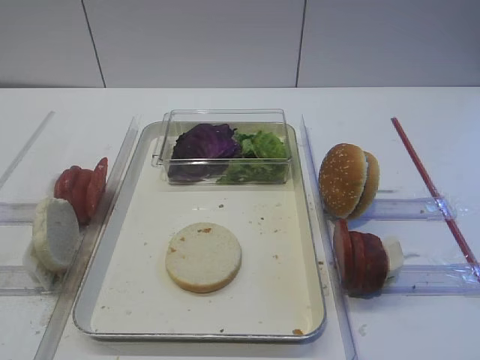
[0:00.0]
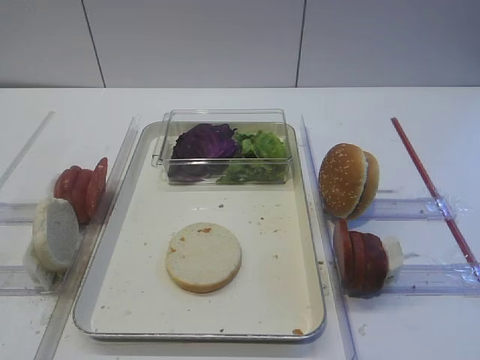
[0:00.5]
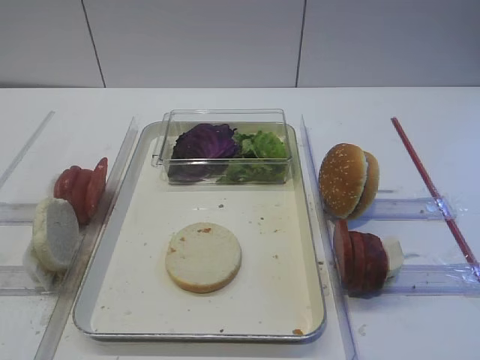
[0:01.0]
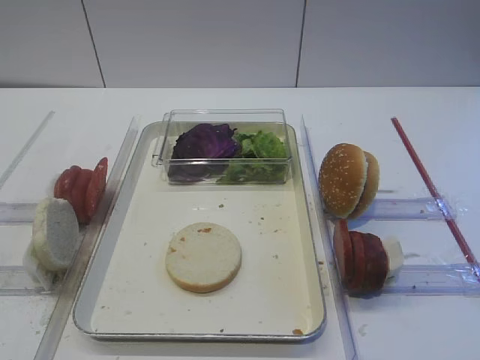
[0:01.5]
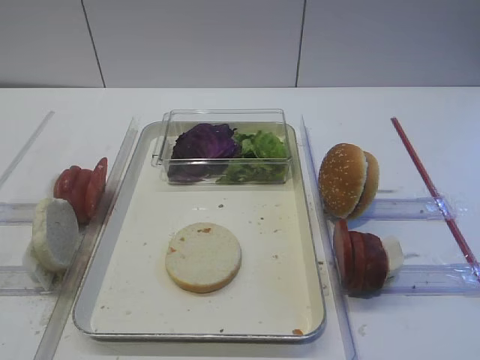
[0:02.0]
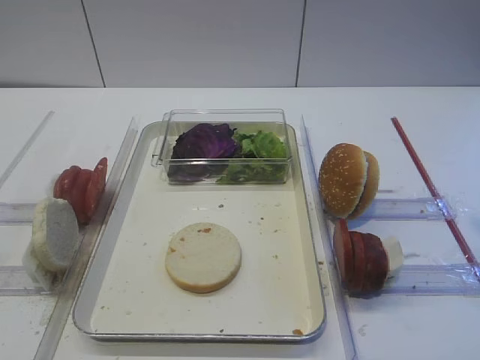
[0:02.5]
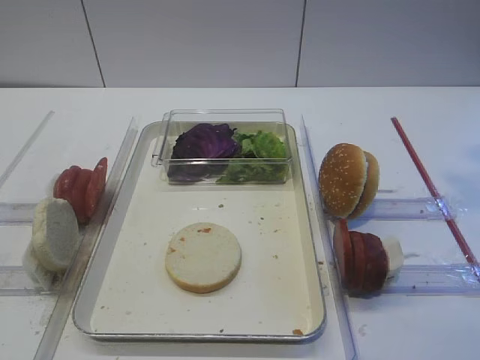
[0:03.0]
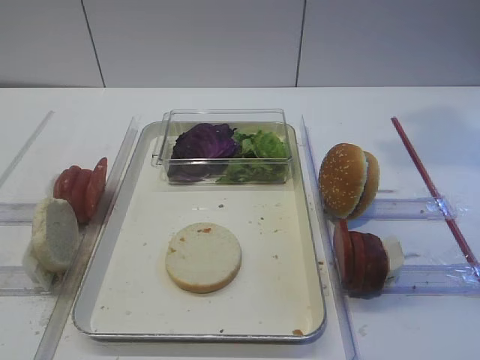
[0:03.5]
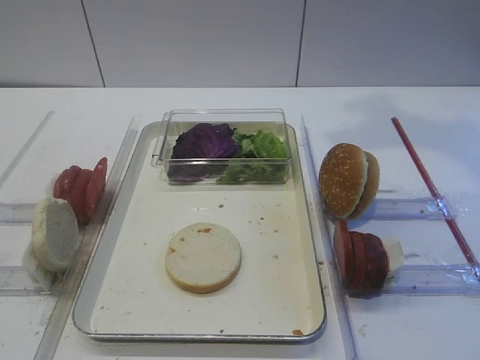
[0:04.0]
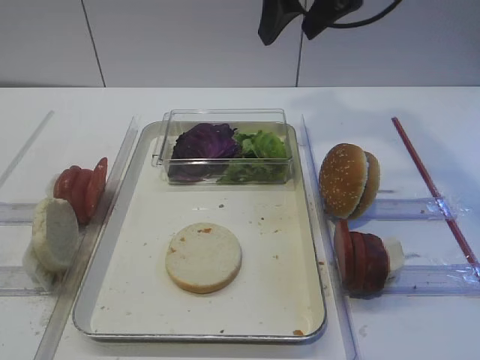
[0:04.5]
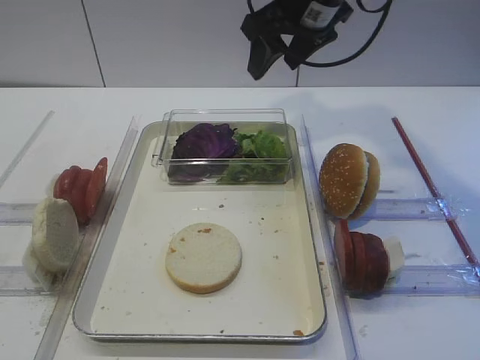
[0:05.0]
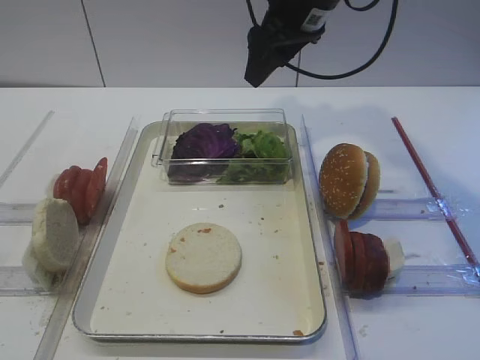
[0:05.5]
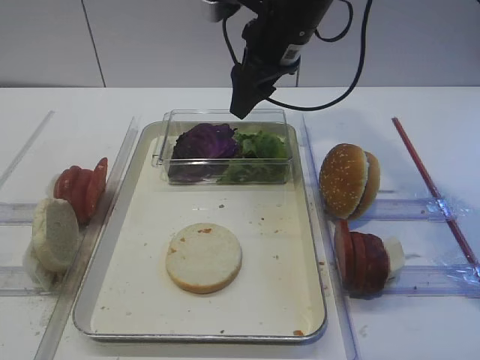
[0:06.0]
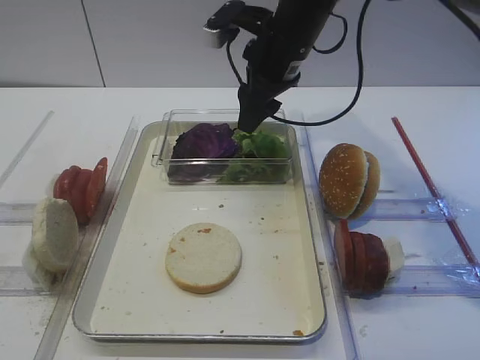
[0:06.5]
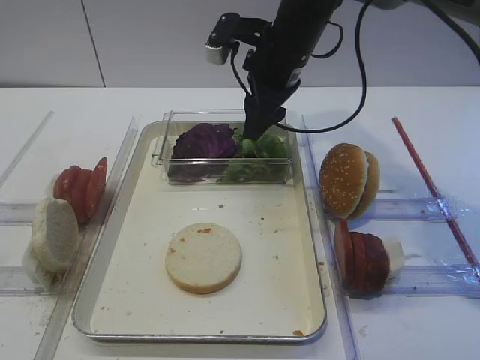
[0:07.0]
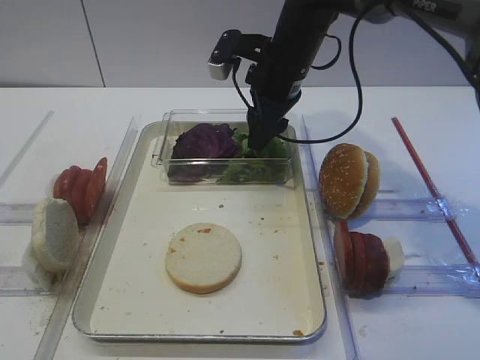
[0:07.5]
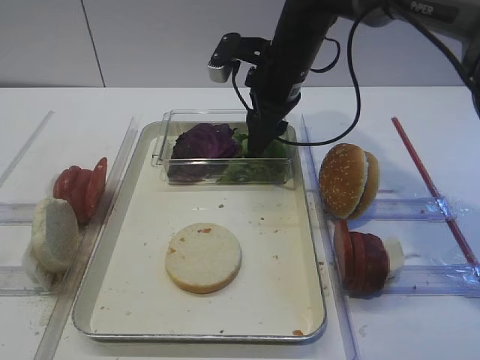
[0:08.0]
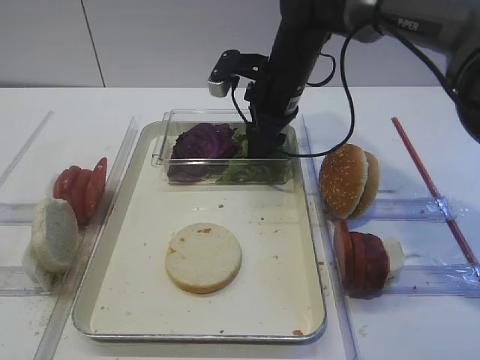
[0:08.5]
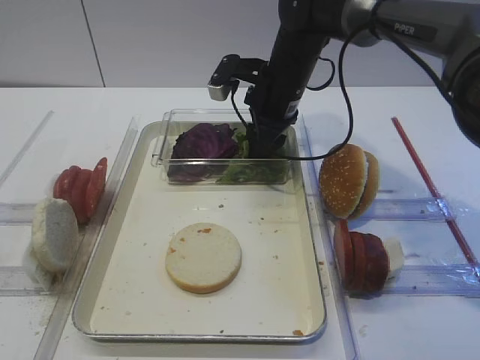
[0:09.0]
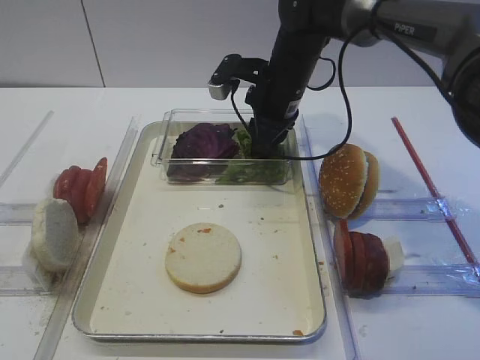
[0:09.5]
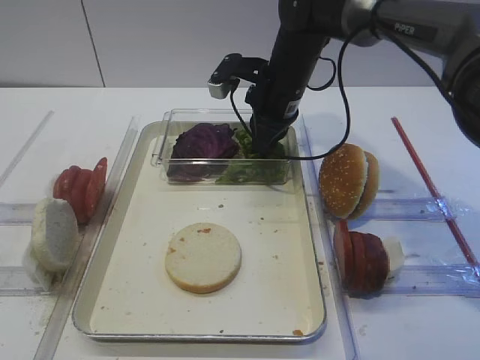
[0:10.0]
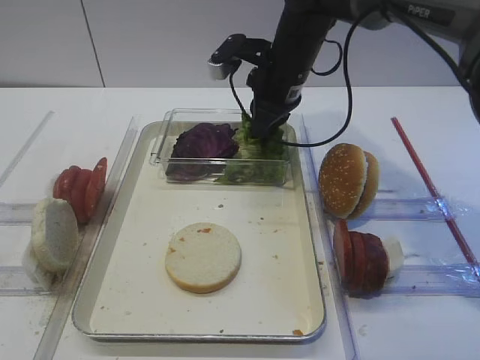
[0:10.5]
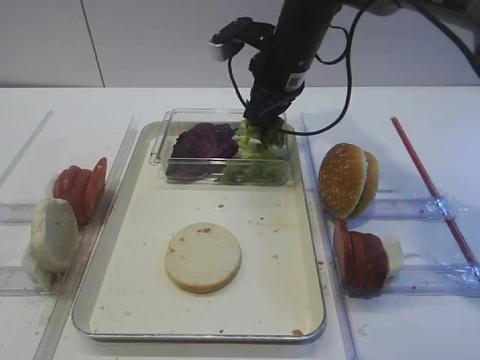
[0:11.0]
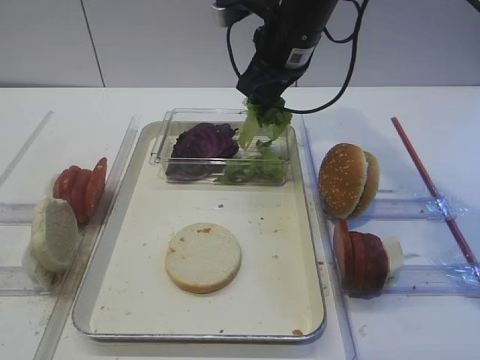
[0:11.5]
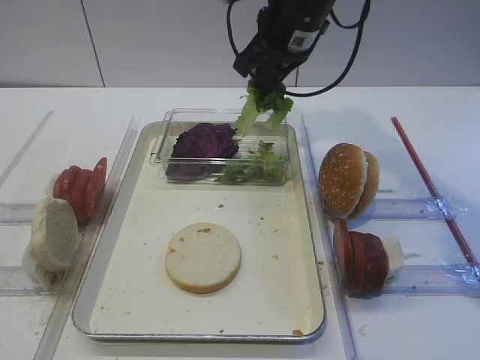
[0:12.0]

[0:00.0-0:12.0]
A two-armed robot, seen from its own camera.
0:04.0 to 0:06.0: The right gripper is displaced downward, to the left and forward by about 20 cm.
0:06.0 to 0:08.0: The right gripper heads downward, covering some 5 cm.
0:08.0 to 0:10.0: The right gripper closes its fingers.
0:10.0 to 0:12.0: The right gripper heads upward, covering approximately 10 cm.

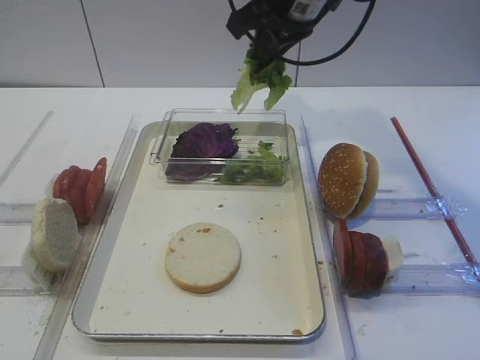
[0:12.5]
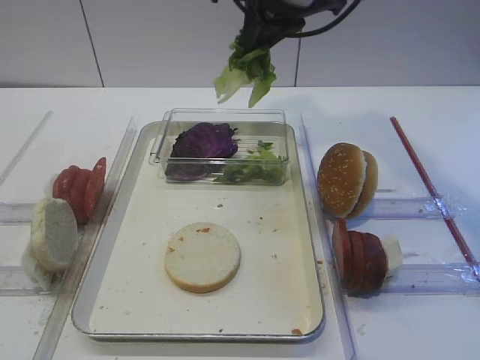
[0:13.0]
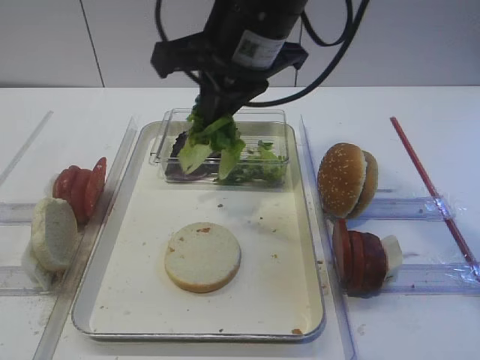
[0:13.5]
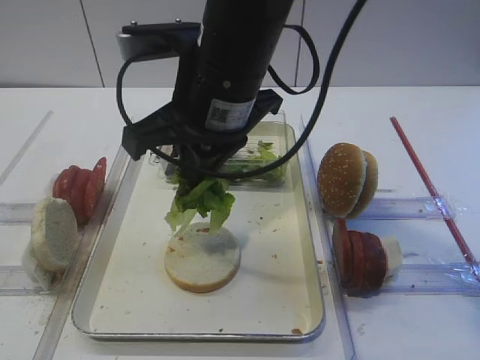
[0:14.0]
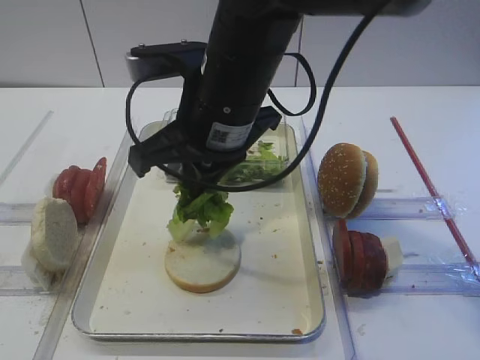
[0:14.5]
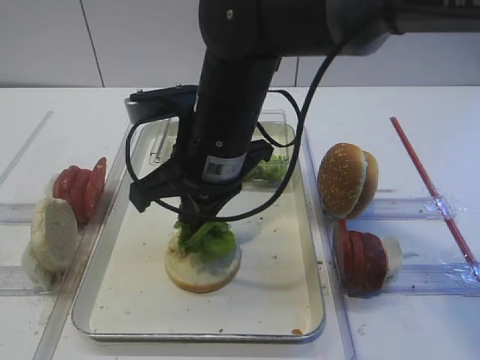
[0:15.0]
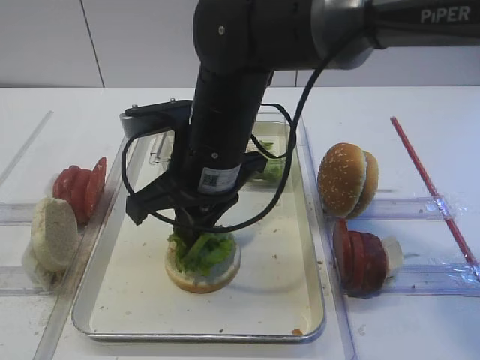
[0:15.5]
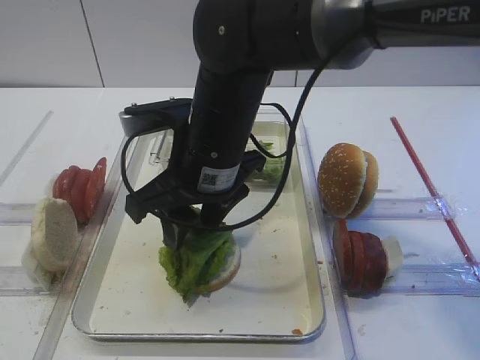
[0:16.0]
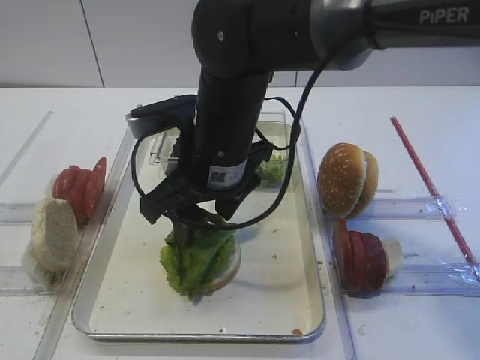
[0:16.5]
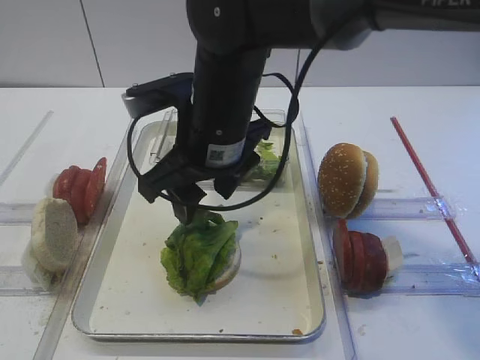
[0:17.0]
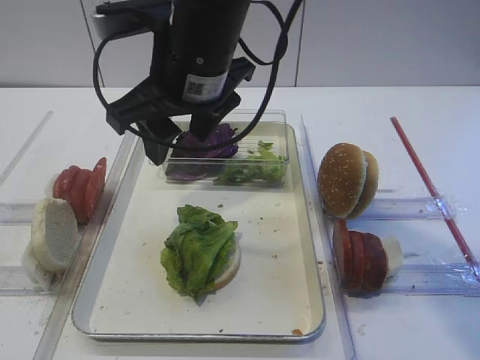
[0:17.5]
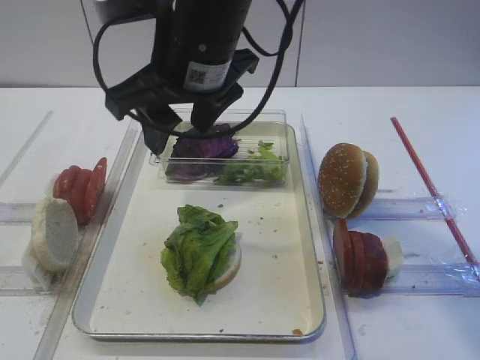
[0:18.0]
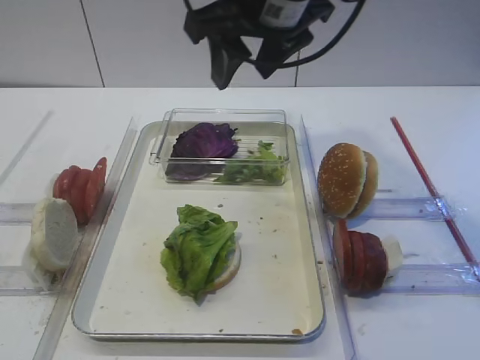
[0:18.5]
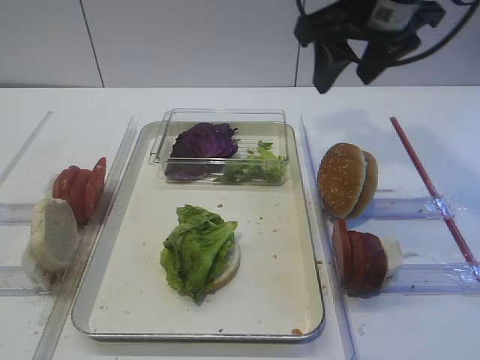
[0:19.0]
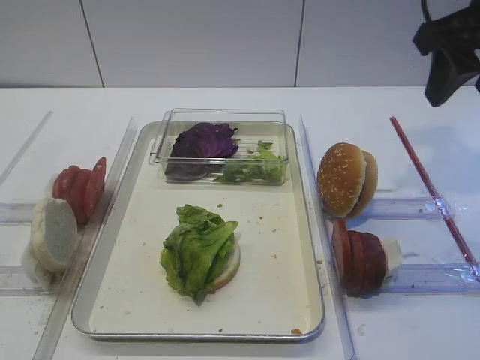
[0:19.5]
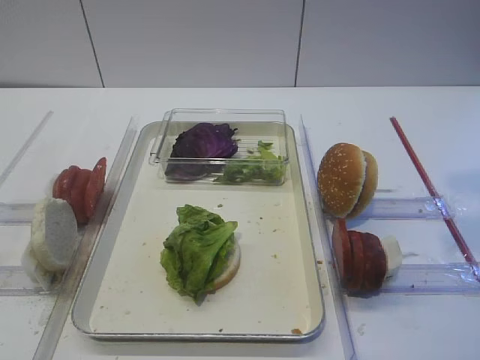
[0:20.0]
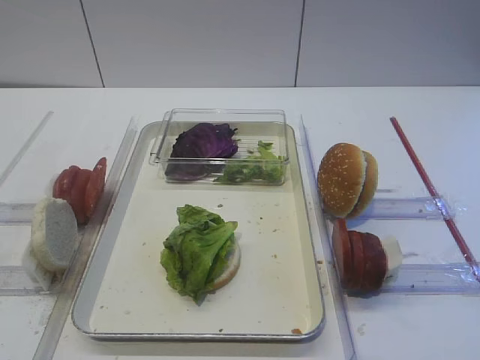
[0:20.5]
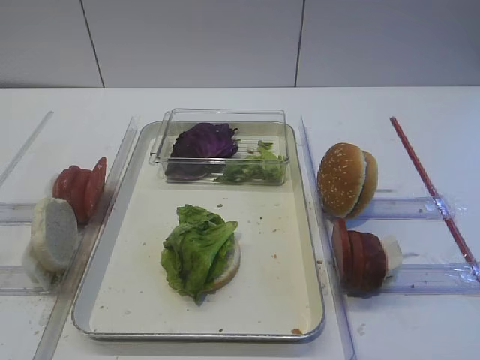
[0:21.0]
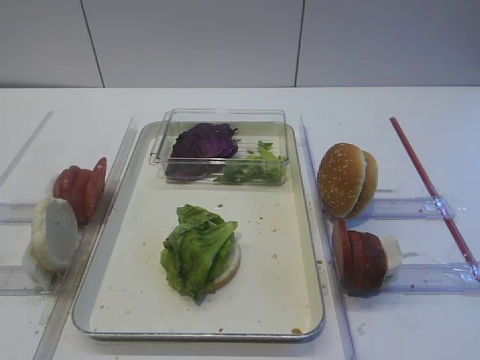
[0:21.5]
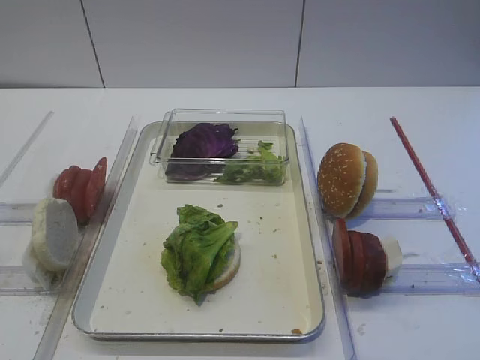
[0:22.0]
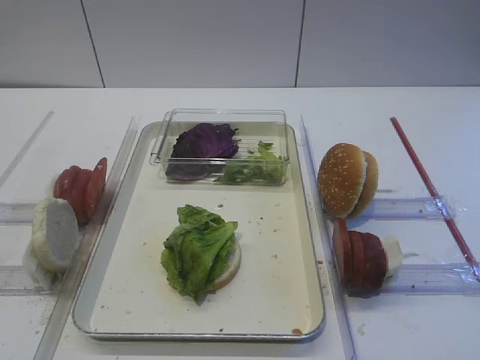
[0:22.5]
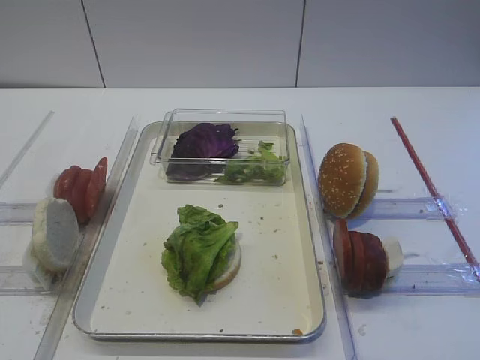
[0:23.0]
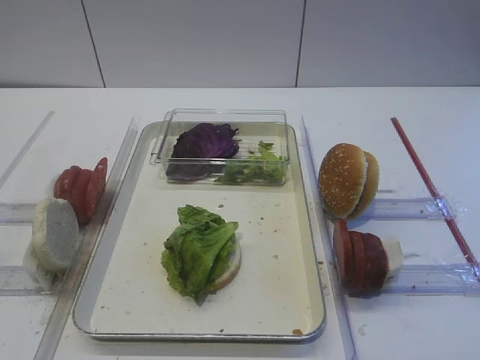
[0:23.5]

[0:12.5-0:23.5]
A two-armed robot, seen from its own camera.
Step, 0:13.0 to 0:17.0: Place the lettuce leaf on the bread slice with the right gripper.
0:12.5 to 0:14.5: The right gripper heads backward, to the left and downward, covering roughly 15 cm.
0:14.5 to 0:16.0: The right gripper opens.
0:16.0 to 0:18.0: The right gripper is displaced upward by some 10 cm.
0:18.0 to 0:20.0: The right gripper travels to the right and backward by roughly 30 cm.
0:21.5 to 0:23.5: Neither gripper changes place.

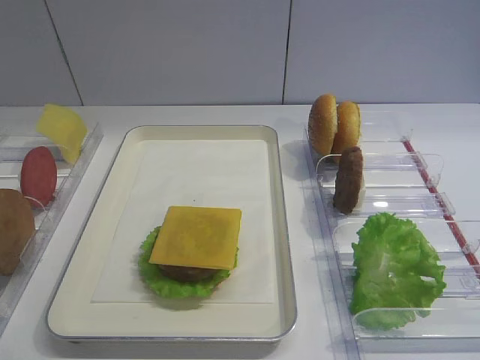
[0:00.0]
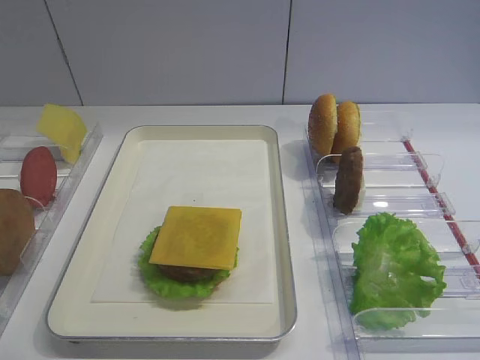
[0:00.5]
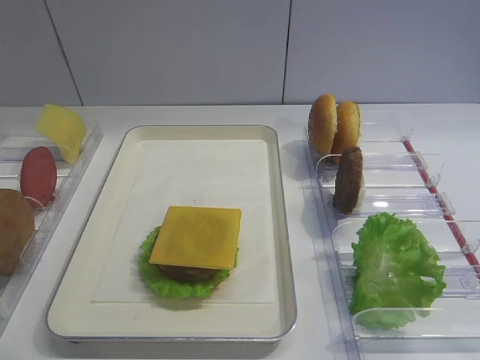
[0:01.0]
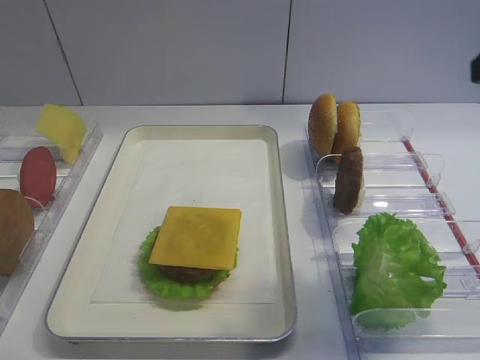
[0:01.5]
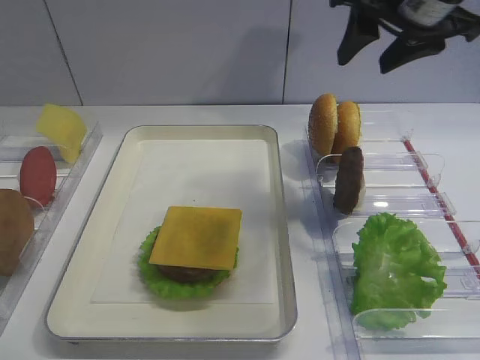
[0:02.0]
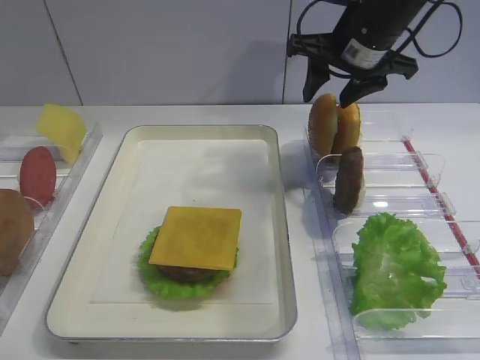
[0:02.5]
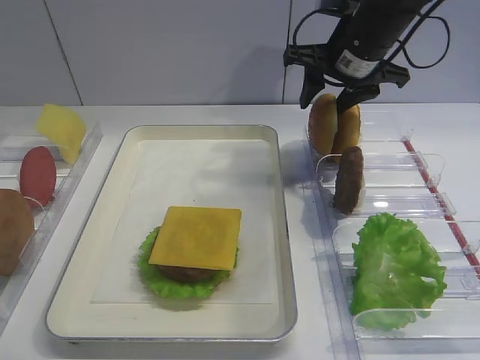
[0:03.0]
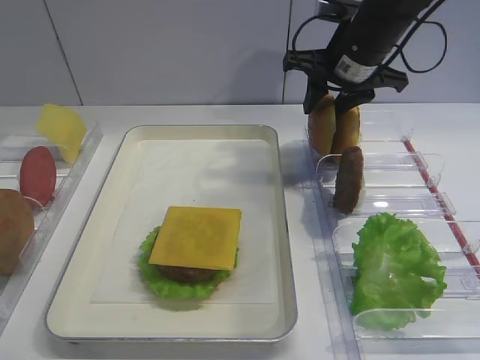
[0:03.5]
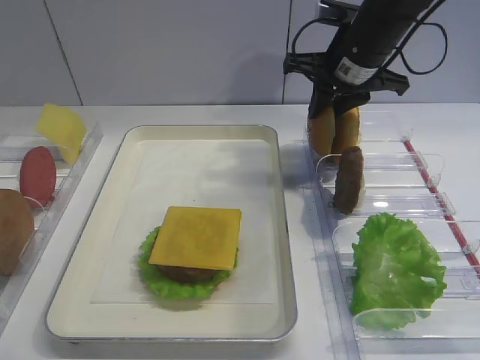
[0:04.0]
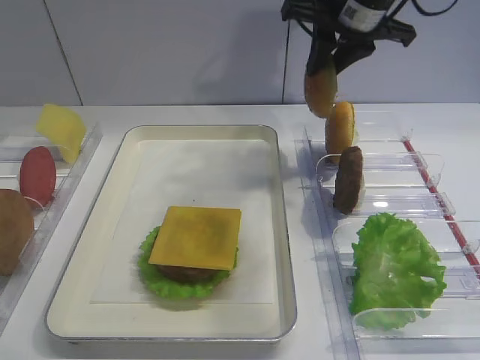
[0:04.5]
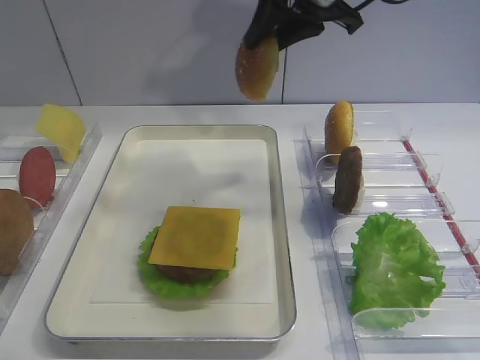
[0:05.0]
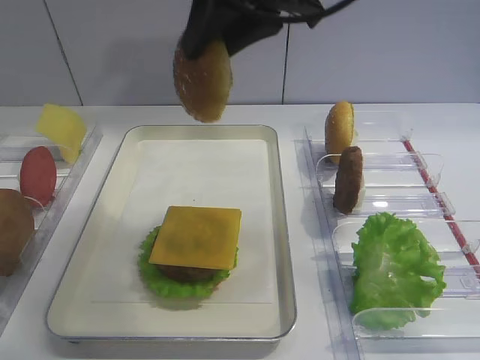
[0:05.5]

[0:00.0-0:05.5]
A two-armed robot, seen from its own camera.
Step, 0:00.0 to 0:04.0: Pick up the hamburger lid with the right gripper.
0:02.0 to 0:03.5: The right gripper is displaced downward and forward by some 10 cm, and closes up.
0:03.5 to 0:05.5: The right gripper goes roughly 20 cm upward, backward and to the left, and closes up.
